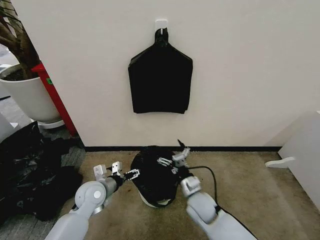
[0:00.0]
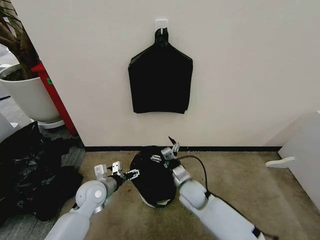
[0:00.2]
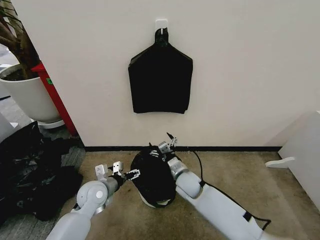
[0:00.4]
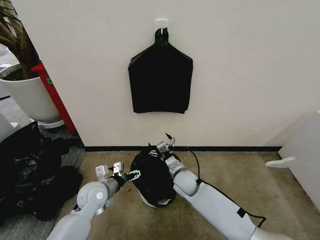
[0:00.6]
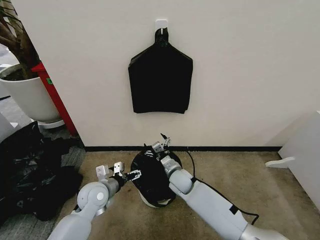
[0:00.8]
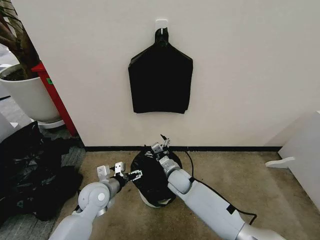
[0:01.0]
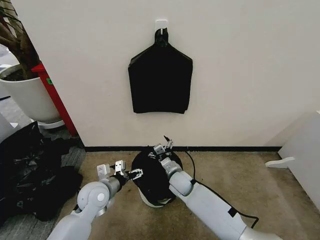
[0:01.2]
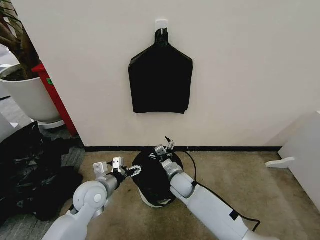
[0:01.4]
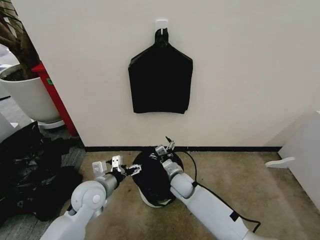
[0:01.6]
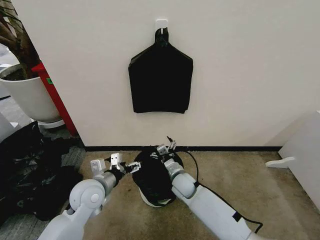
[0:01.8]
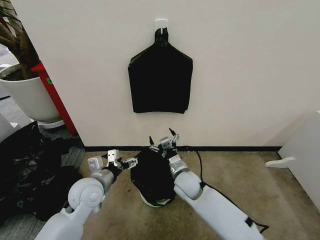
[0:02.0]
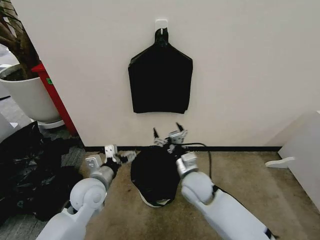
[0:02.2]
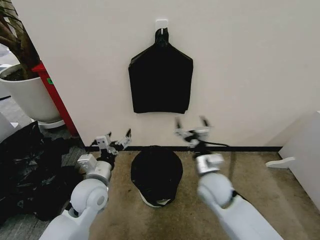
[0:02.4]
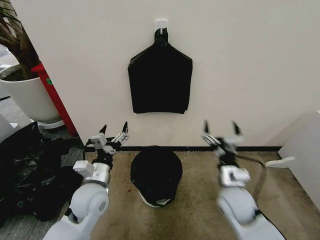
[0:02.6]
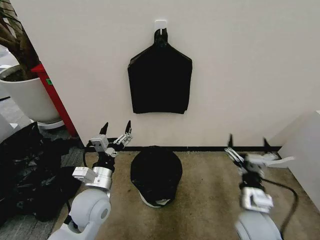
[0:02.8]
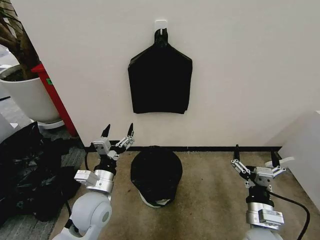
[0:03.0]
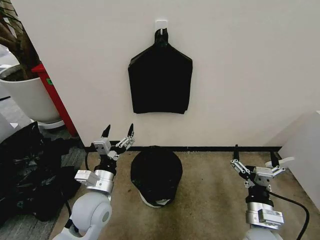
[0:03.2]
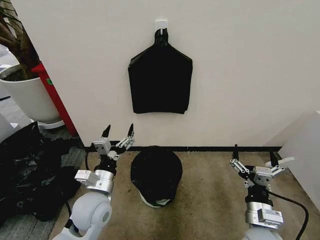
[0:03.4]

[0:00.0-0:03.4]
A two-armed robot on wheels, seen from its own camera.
Task of the whole recording: Place the garbage bag over the trash bin.
0:00.0 to 0:01.6: The right gripper shifts roughly 10 cm forward. The left gripper changes place by approximately 5 cm.
0:01.6 to 0:03.4: The right gripper travels backward, to the right and upward by about 30 cm; the left gripper moves approximately 5 cm.

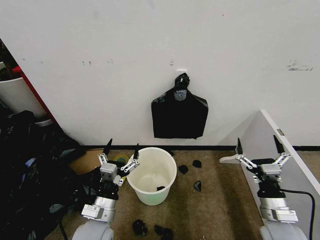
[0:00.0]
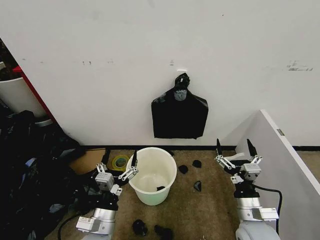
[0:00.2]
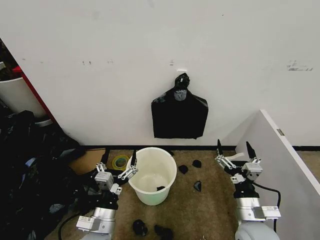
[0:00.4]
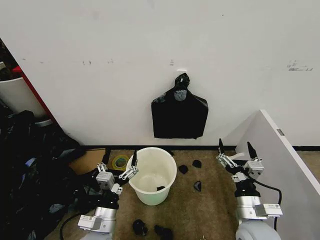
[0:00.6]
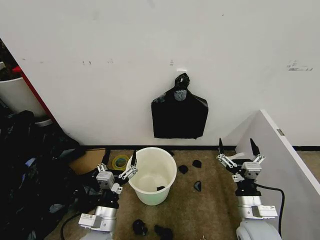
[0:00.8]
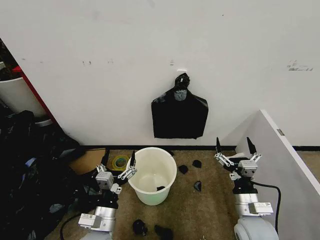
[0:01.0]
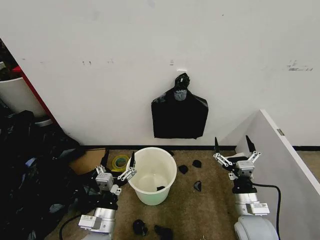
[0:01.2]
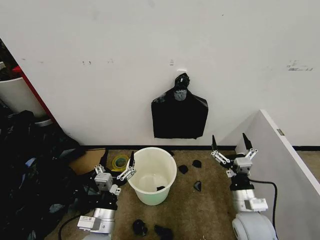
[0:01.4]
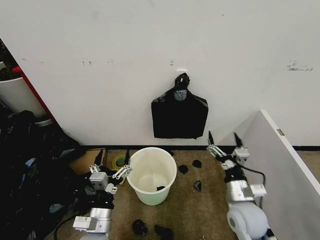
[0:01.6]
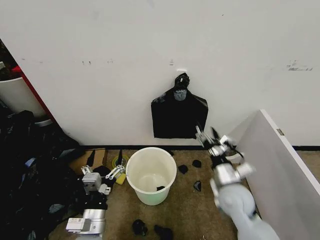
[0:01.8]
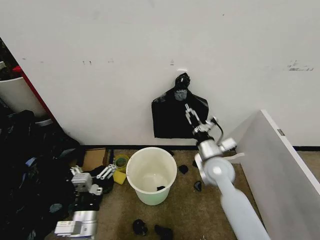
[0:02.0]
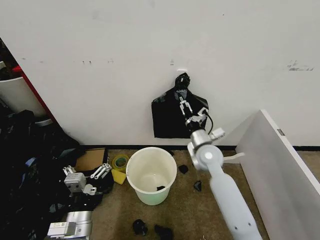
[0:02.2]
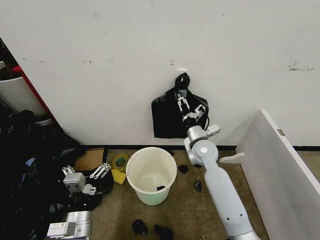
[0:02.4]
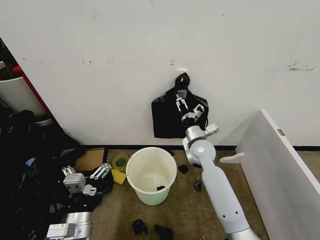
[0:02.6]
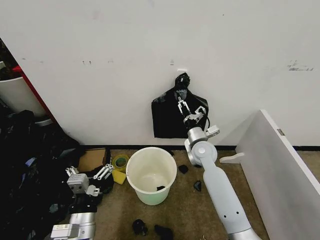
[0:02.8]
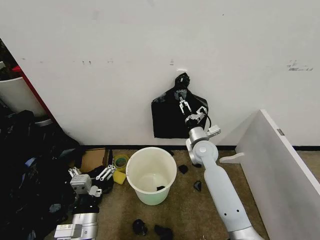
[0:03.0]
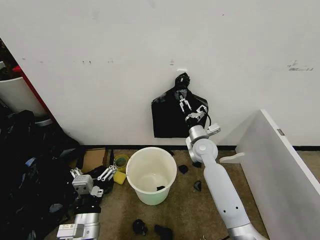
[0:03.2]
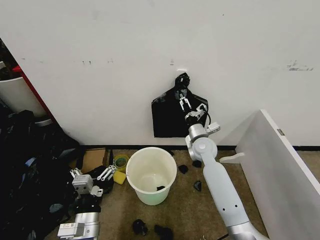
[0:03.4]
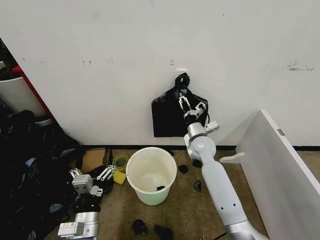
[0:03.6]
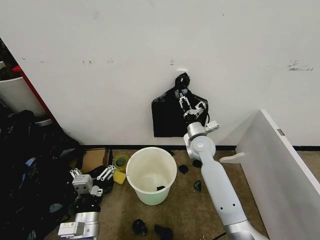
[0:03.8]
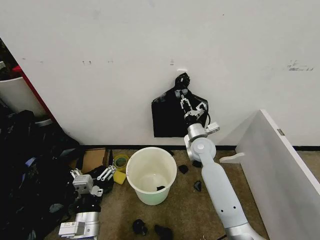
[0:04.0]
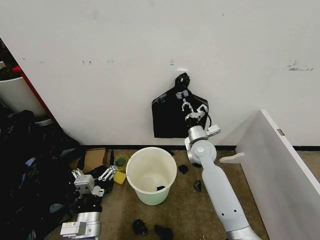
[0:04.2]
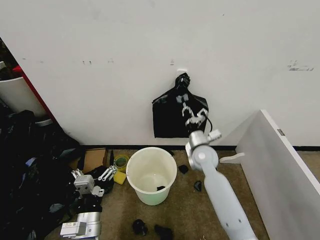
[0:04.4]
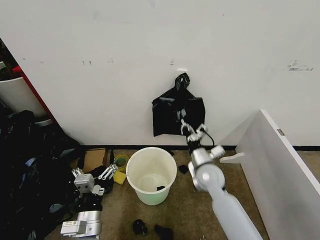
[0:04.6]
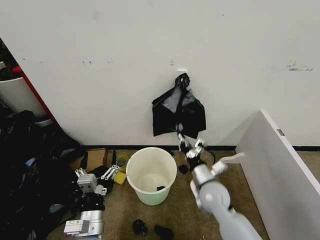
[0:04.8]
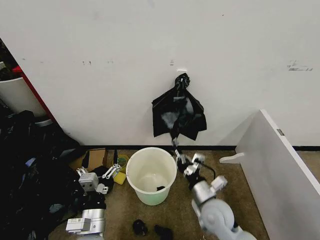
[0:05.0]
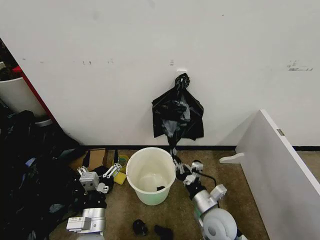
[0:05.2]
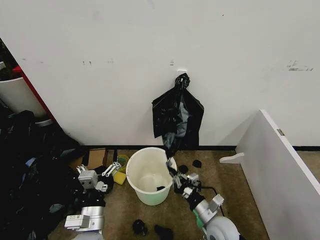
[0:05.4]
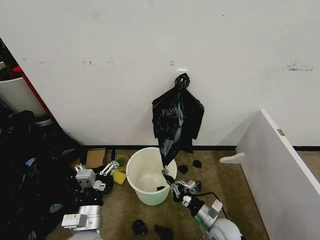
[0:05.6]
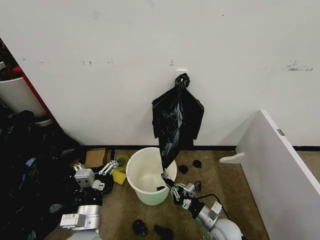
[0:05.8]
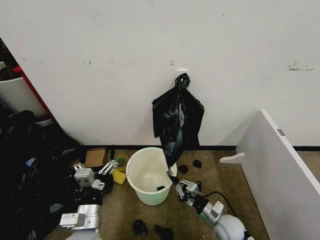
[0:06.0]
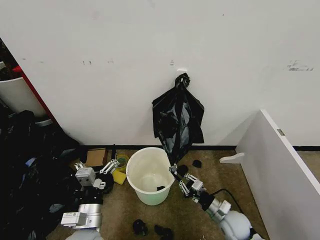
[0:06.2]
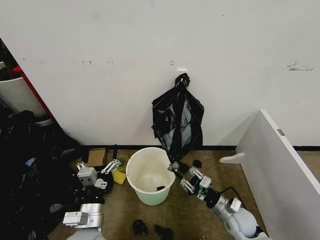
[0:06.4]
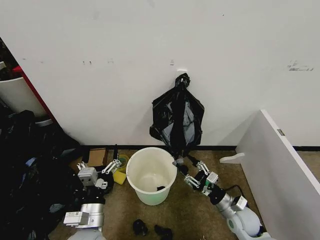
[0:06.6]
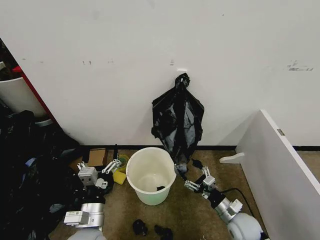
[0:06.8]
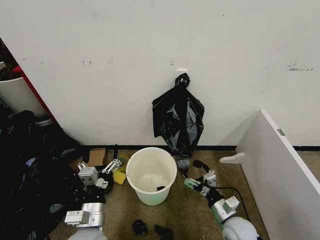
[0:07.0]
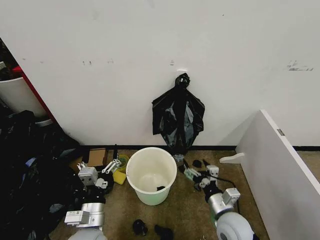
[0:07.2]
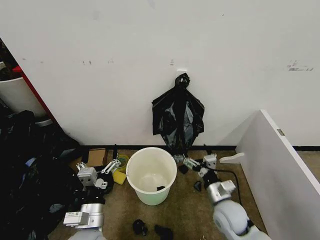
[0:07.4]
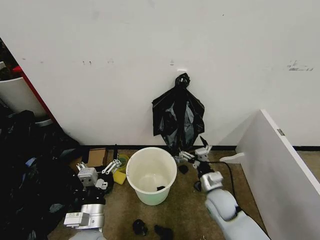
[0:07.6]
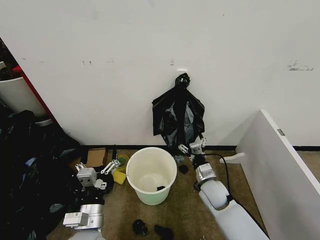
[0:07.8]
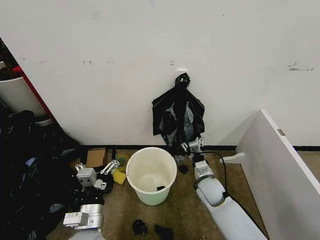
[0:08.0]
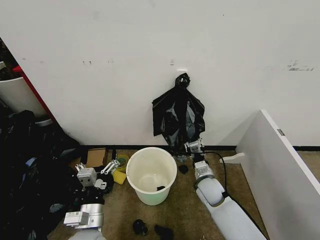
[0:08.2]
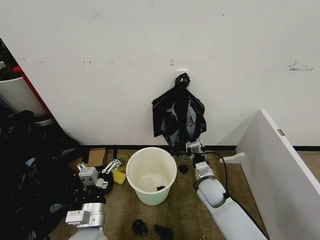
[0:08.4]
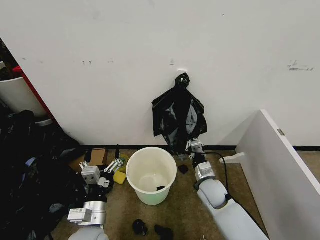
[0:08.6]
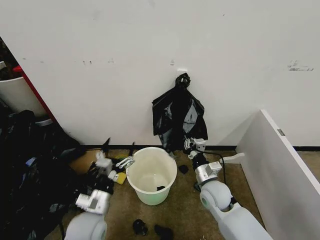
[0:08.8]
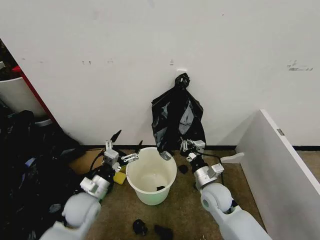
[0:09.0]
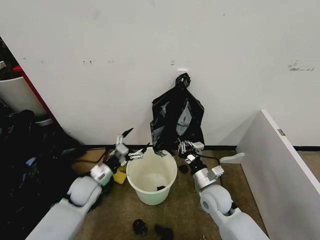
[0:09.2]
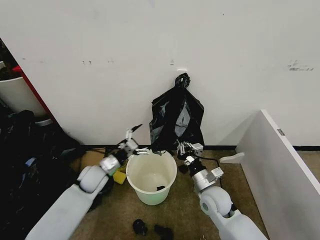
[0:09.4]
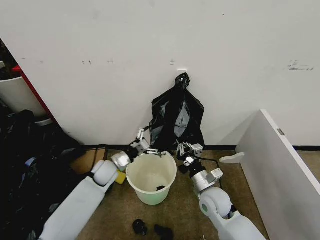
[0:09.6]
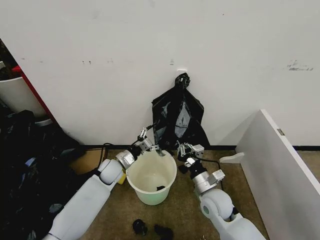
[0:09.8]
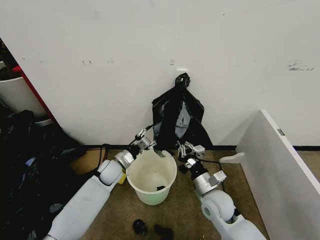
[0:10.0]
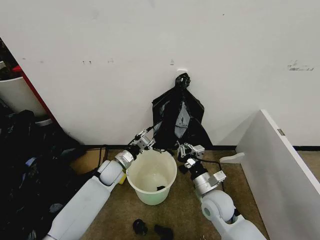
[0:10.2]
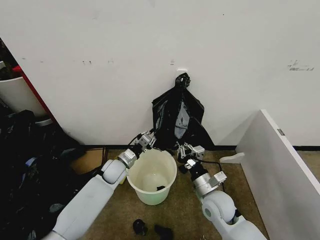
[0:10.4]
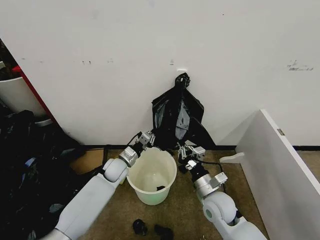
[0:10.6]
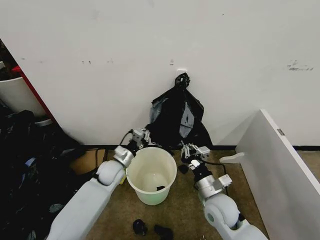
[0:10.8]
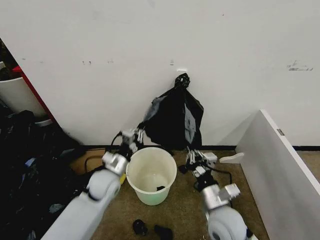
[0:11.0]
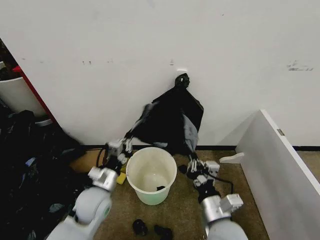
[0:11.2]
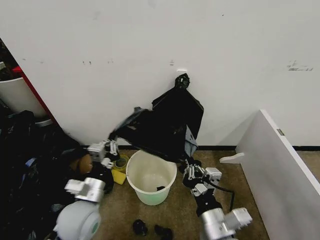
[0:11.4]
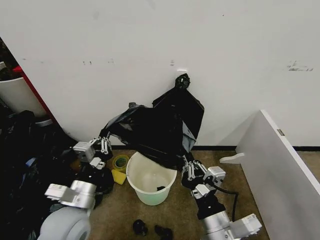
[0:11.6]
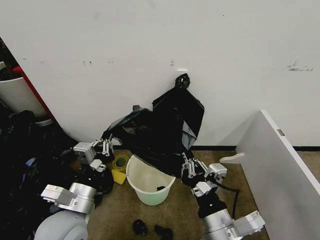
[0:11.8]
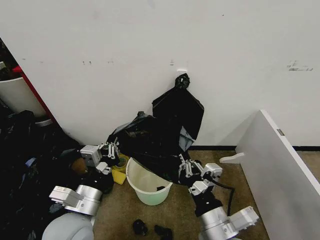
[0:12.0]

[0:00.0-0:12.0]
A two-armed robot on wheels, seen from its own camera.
Task of the whole recording: Place the garbage bag over the trash bin.
0:01.6 to 0:03.0: The right gripper shifts some 20 cm forward.
0:03.0 to 0:04.4: The right gripper closes.
0:04.4 to 0:06.0: The right gripper shifts about 25 cm backward, downward and to the right.
0:06.0 to 0:07.6: The right gripper travels upward and forward by approximately 10 cm, and opens.
0:07.6 to 0:09.0: The left gripper heads forward, covering about 10 cm; the right gripper closes up.
0:09.0 to 0:10.4: The left gripper shifts roughly 15 cm forward, and closes its fingers.
0:10.4 to 0:12.0: The right gripper shifts about 20 cm backward and upward, while the left gripper moves backward and upward, about 30 cm.

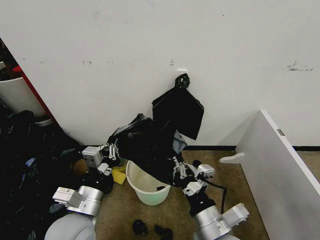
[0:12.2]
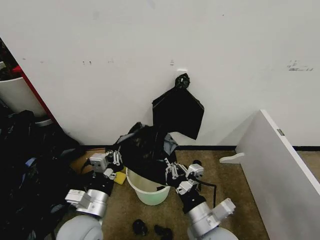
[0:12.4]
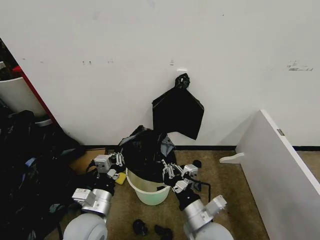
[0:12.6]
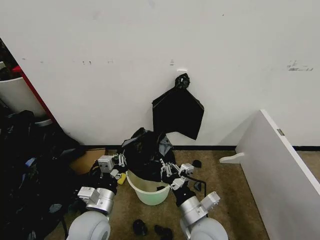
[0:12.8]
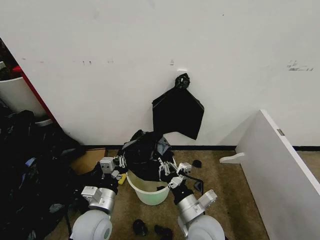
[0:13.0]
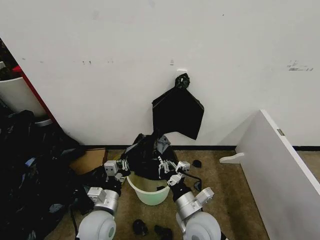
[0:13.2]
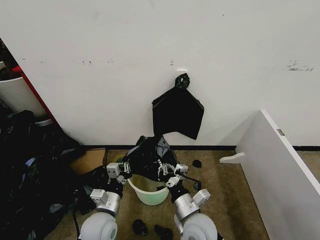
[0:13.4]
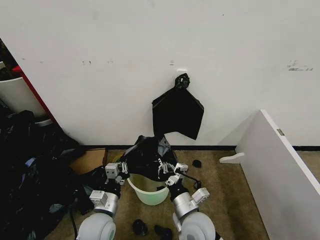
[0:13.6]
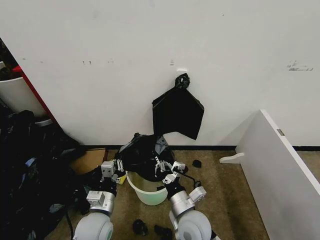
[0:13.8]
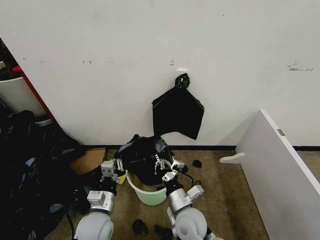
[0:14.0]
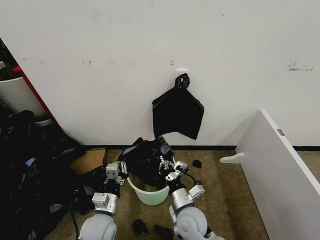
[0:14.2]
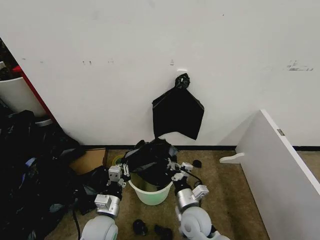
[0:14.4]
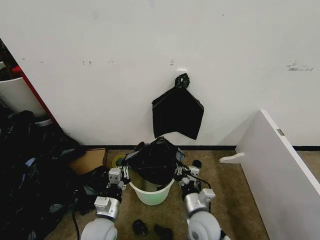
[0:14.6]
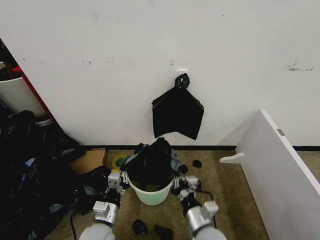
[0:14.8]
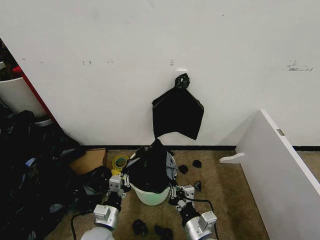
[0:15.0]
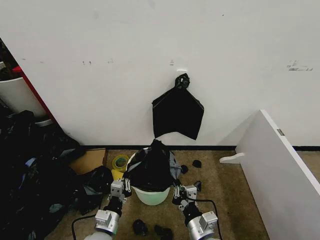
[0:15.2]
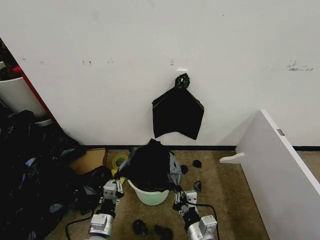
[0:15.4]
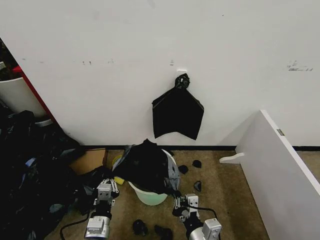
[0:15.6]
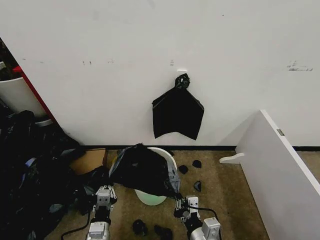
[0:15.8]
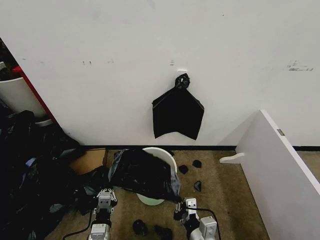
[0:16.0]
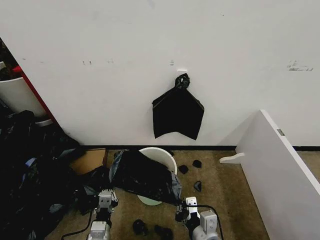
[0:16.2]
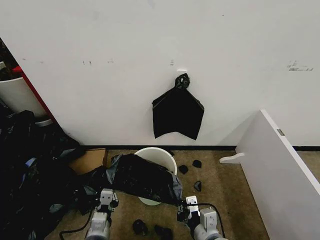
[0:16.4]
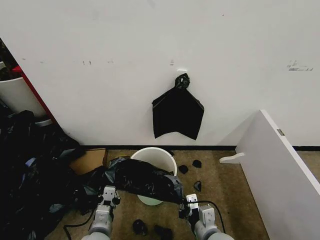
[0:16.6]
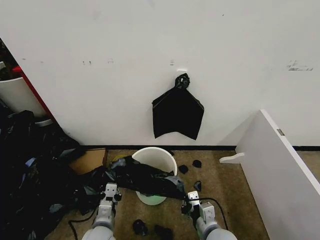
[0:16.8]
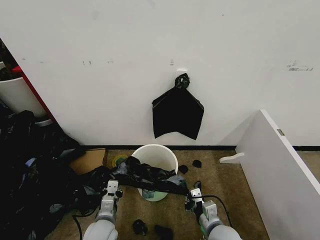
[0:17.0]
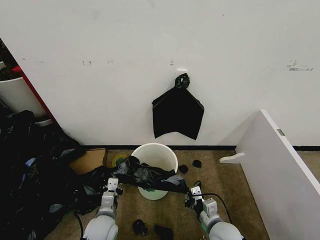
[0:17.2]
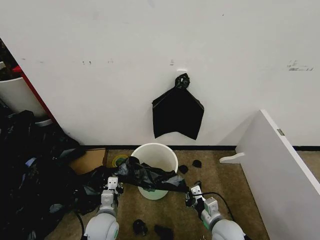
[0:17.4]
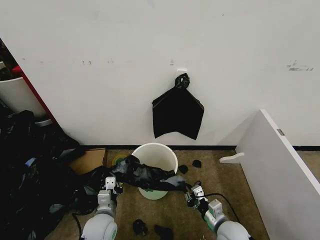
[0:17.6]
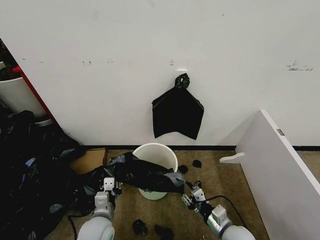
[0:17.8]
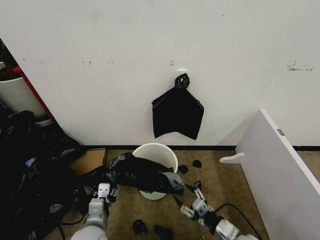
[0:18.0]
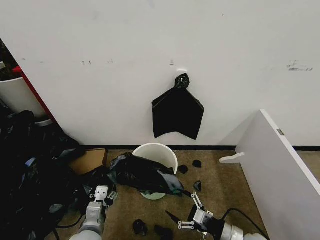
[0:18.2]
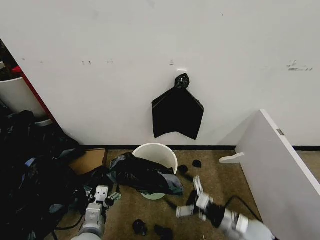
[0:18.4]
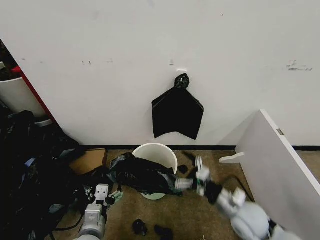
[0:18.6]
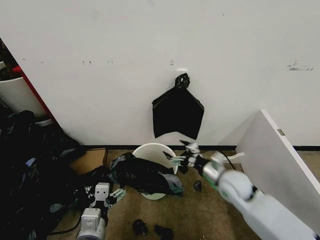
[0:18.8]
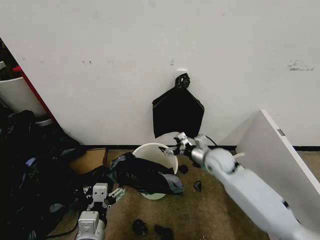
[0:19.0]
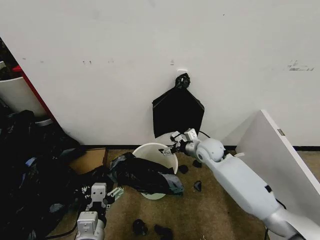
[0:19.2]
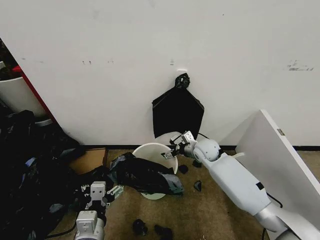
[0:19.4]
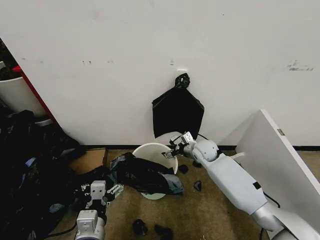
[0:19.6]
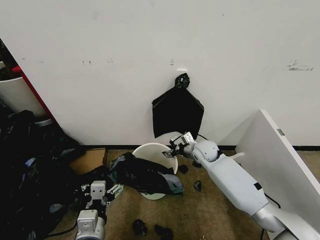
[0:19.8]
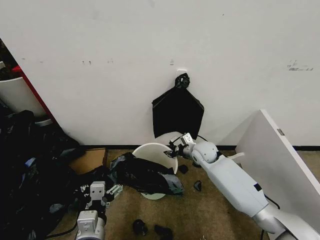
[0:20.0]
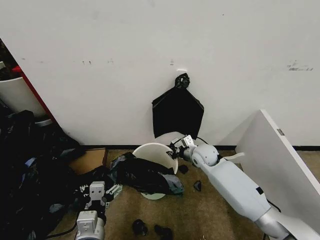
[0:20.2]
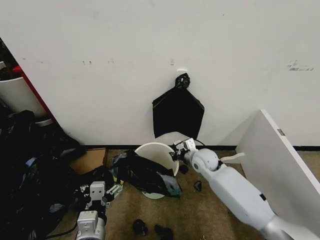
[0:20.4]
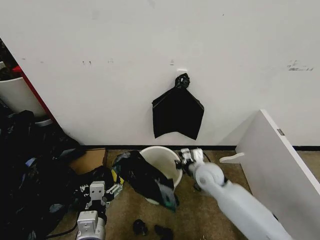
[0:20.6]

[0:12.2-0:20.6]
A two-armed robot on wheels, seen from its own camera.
Task of the whole recording: Place the garbage bag over the trash bin.
0:12.2 to 0:13.6: The right gripper heads downward and forward, covering about 15 cm; the left gripper shifts roughly 15 cm downward.
0:13.6 to 0:15.0: The right gripper travels backward by roughly 5 cm.
0:16.4 to 0:17.8: The left gripper travels forward by some 5 cm. The right gripper goes approximately 15 cm downward and to the right, and opens its fingers.
0:17.8 to 0:19.2: The left gripper goes about 15 cm upward and backward, and opens its fingers, while the right gripper travels forward and upward by approximately 30 cm, and opens its fingers.
0:19.2 to 0:20.6: The right gripper shifts roughly 10 cm backward, and closes.
